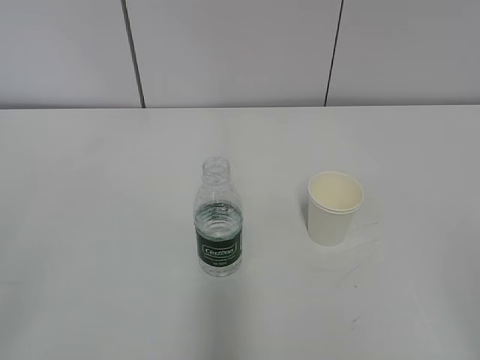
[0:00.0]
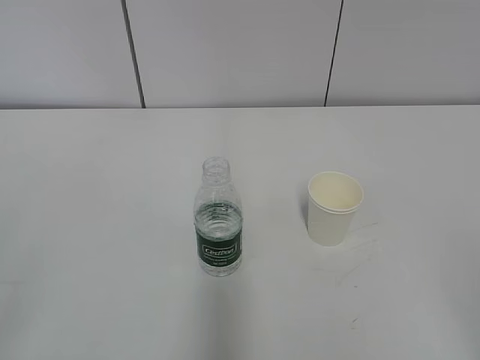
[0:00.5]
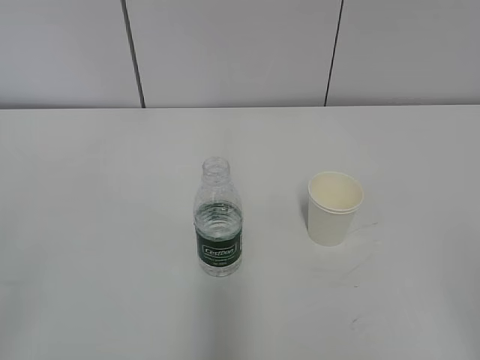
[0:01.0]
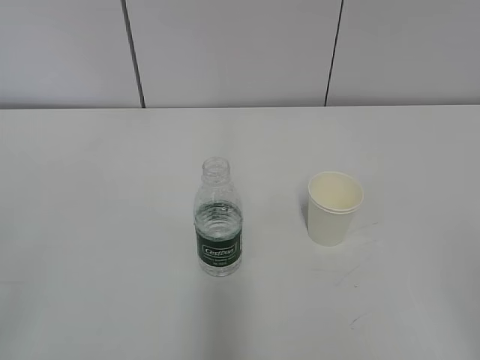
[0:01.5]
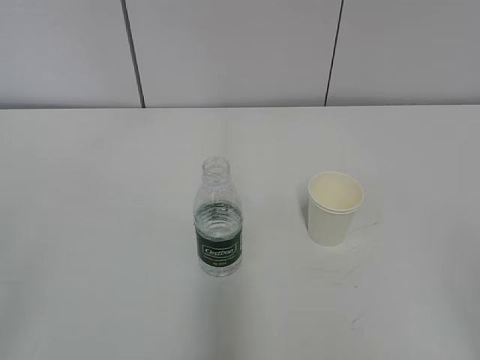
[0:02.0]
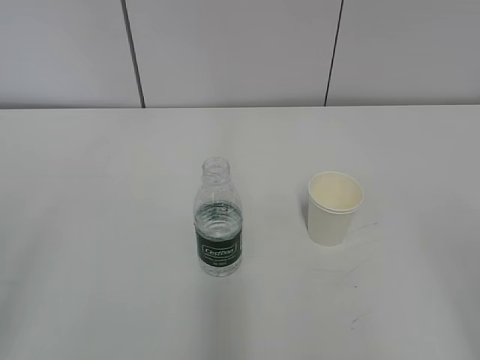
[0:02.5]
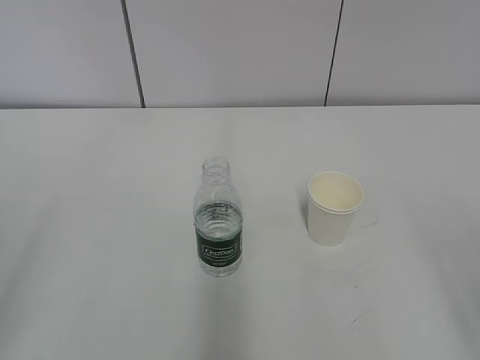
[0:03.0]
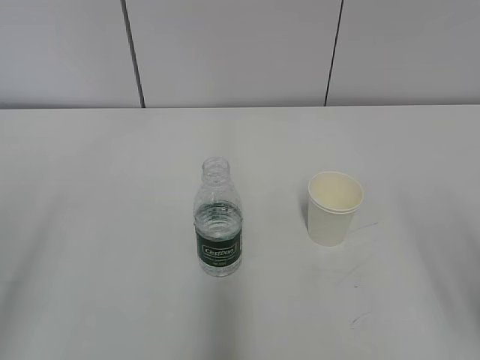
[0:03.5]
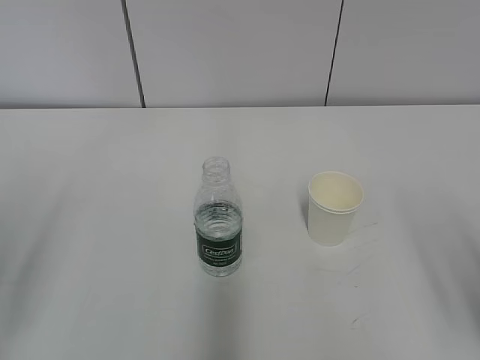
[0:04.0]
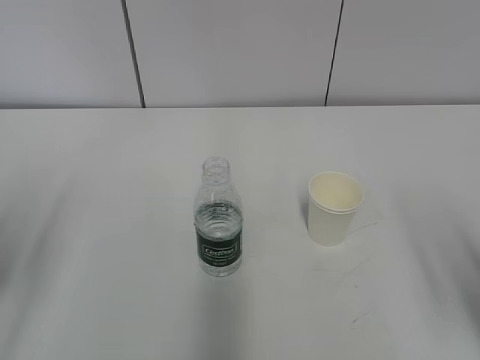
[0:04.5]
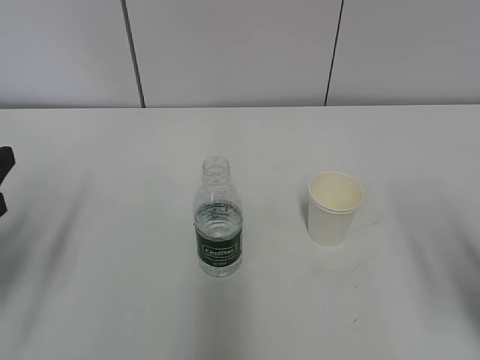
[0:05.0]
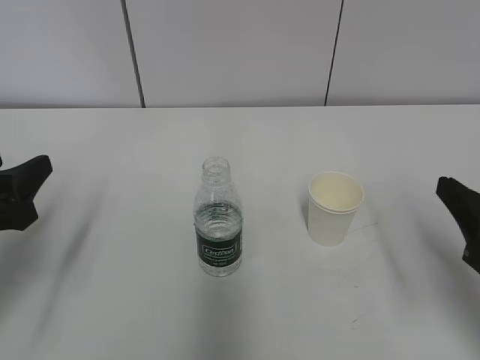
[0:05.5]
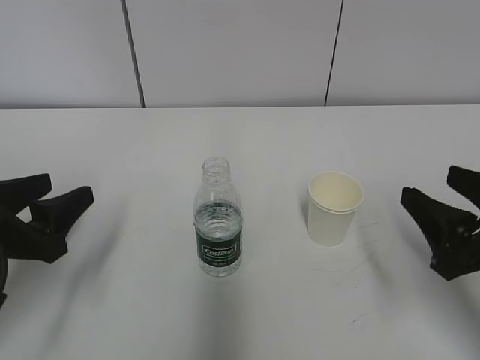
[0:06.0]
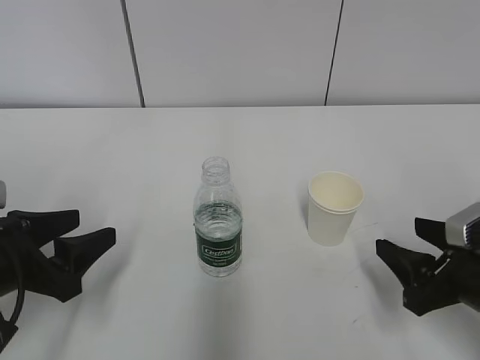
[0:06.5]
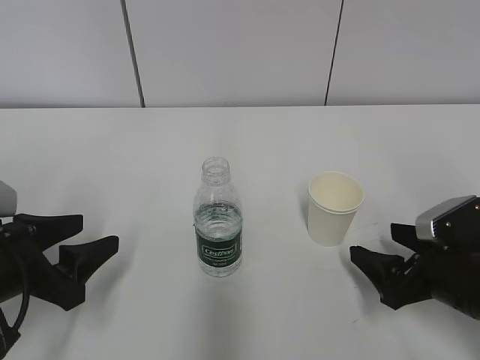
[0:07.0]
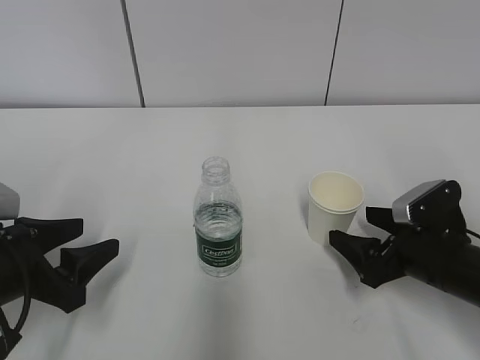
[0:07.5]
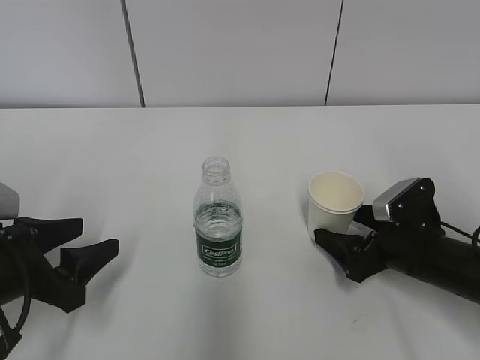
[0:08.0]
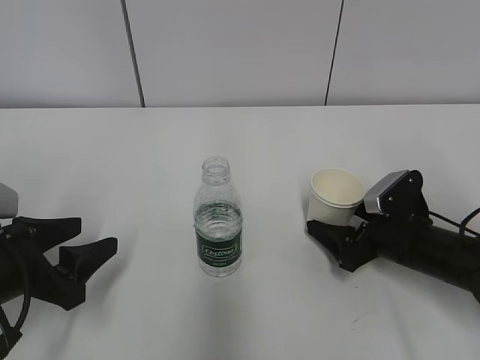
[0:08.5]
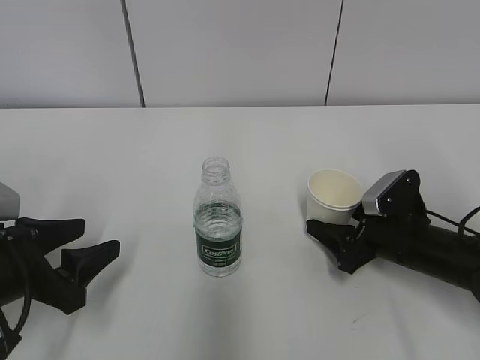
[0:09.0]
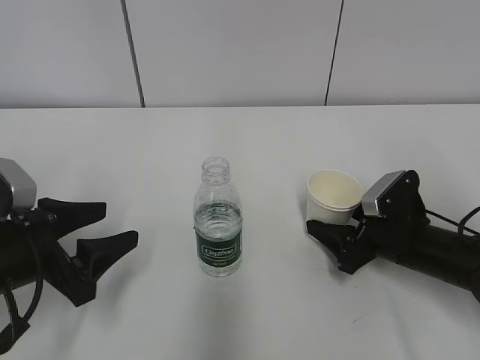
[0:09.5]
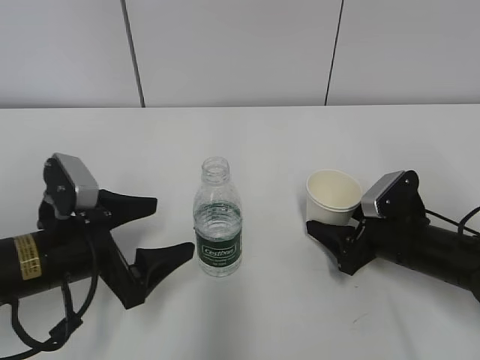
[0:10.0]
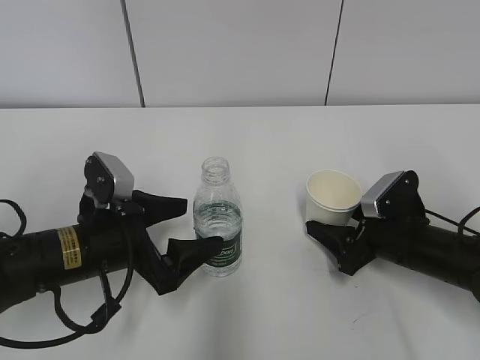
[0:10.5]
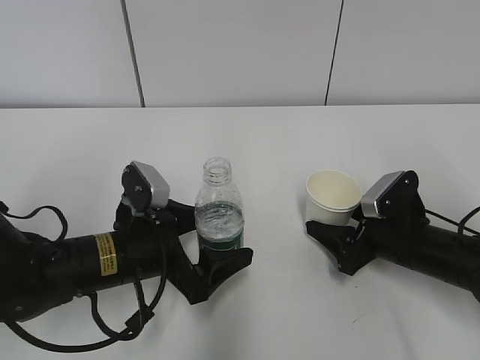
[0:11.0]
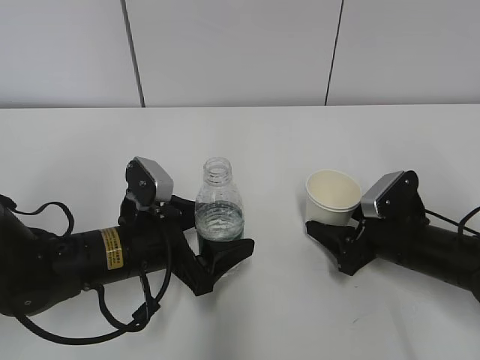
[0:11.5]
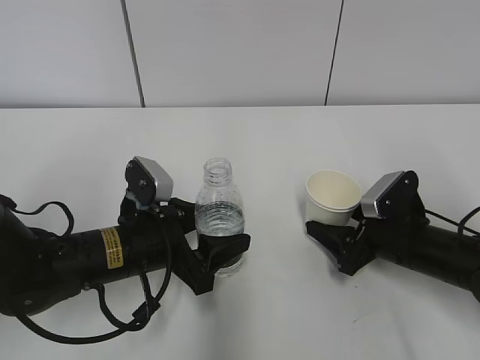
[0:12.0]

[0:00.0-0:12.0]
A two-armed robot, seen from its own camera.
Step, 0:00.0 to 0:07.5: Grab the paper cup with the right hand.
Step, 0:08.0 to 0:11.0: Grab the water bottle with the left hand.
0:04.0 to 0:06.0: The right gripper shifts approximately 10 cm forward and downward, while the left gripper heads downward and forward, covering approximately 15 cm.
0:06.0 to 0:08.0: The right gripper heads downward and forward, covering approximately 15 cm, and opens.
0:08.0 to 0:10.0: The left gripper shifts roughly 5 cm to the right, and opens up, while the right gripper closes its fingers.
0:10.0 to 0:12.0: The left gripper moves to the right, about 5 cm, and closes up.

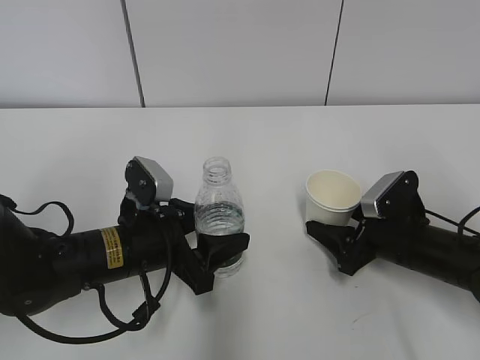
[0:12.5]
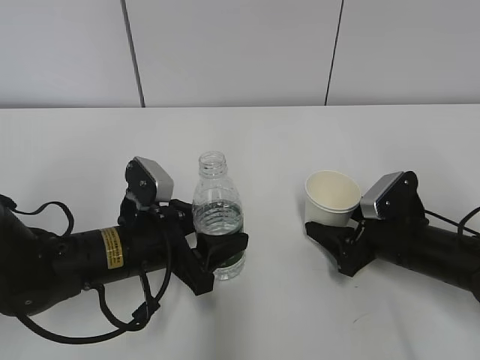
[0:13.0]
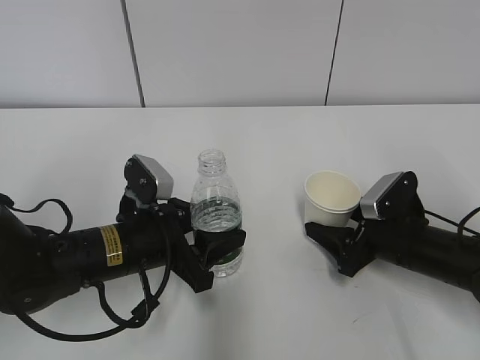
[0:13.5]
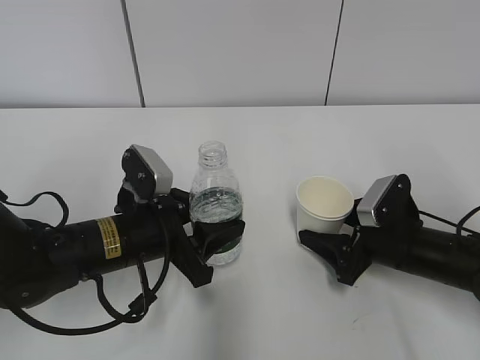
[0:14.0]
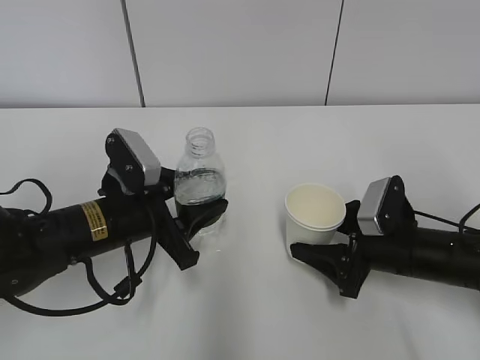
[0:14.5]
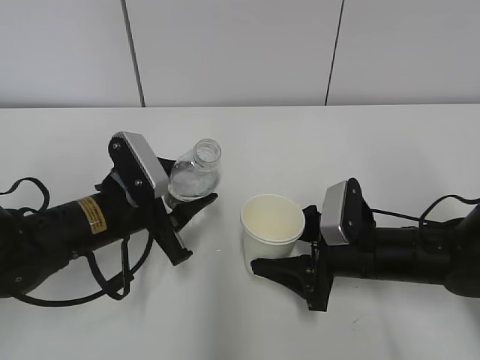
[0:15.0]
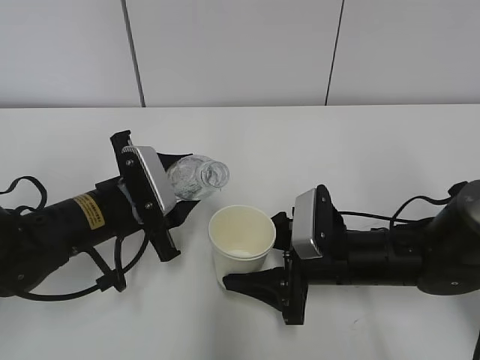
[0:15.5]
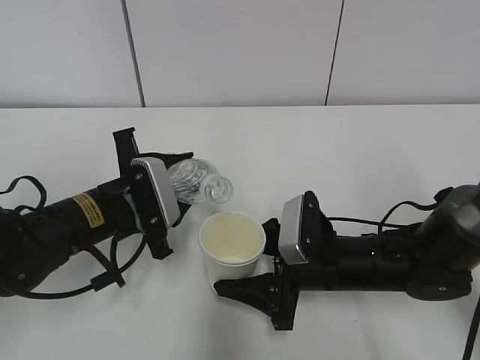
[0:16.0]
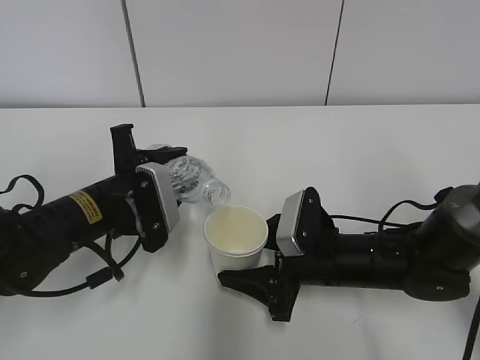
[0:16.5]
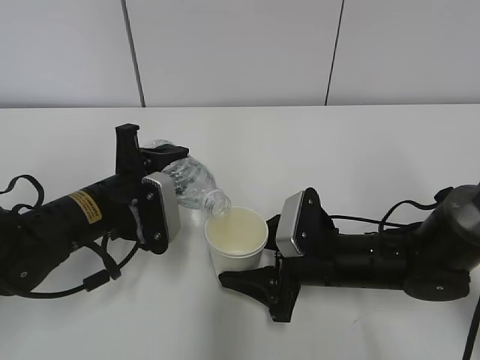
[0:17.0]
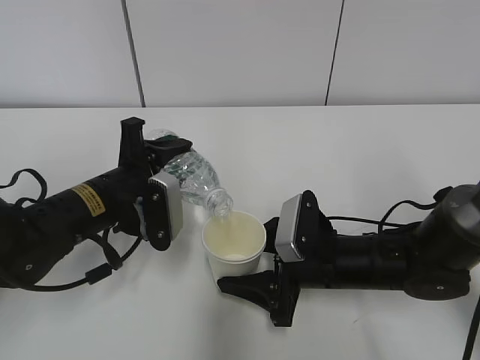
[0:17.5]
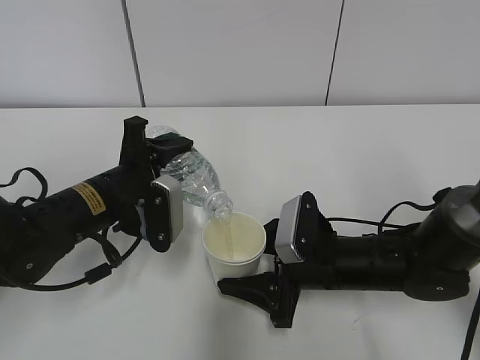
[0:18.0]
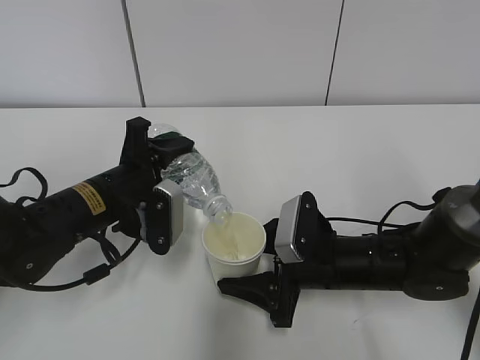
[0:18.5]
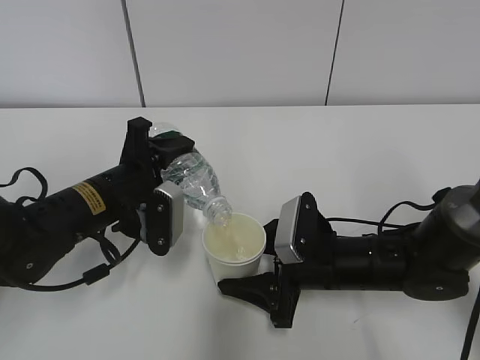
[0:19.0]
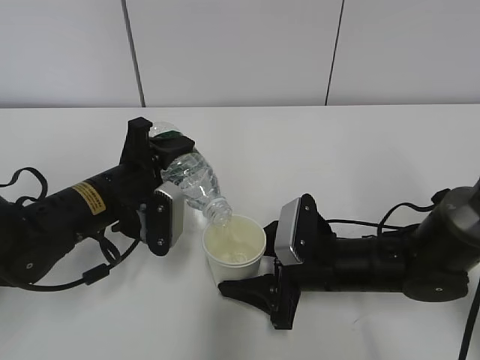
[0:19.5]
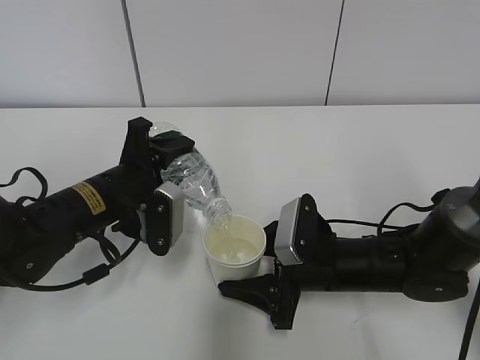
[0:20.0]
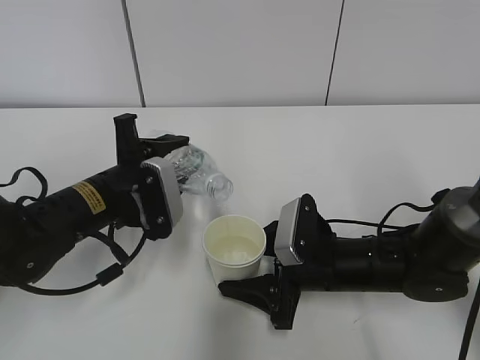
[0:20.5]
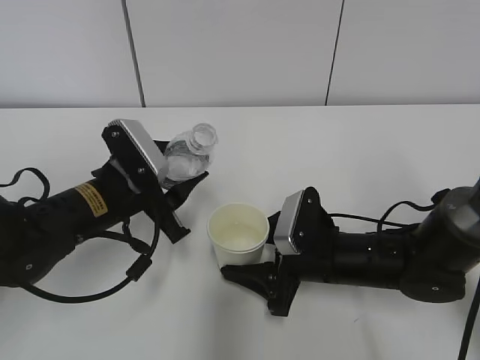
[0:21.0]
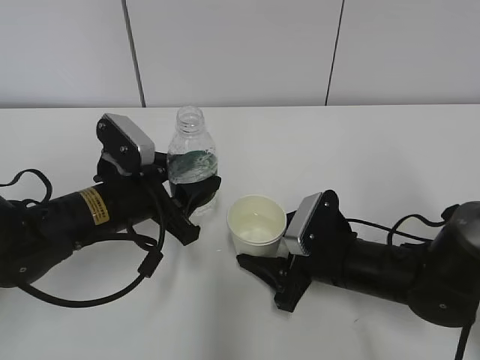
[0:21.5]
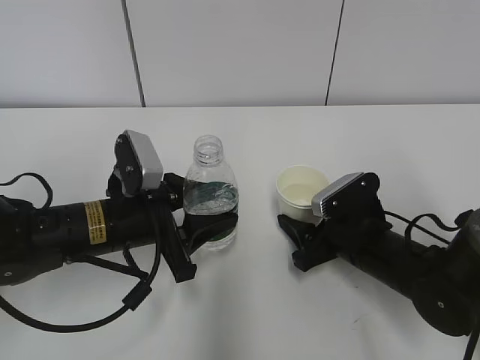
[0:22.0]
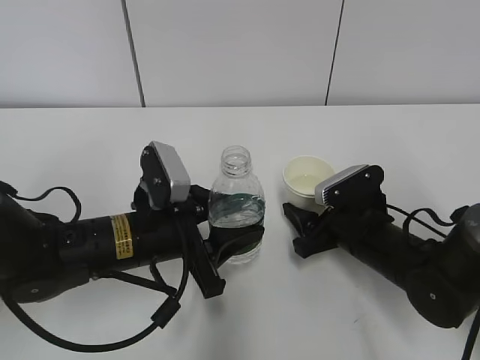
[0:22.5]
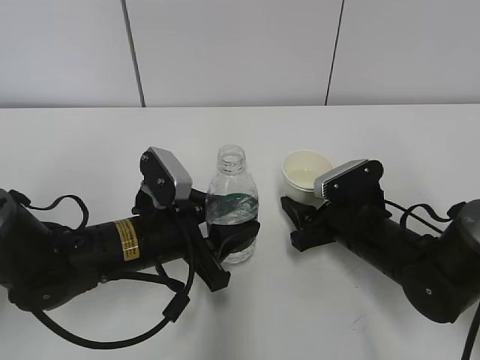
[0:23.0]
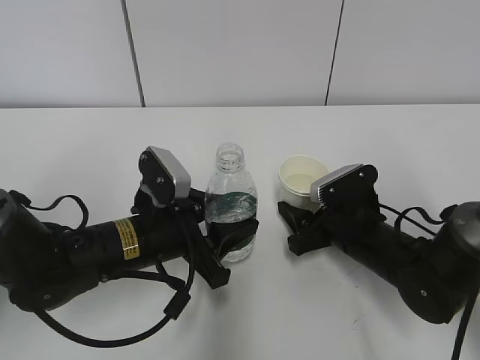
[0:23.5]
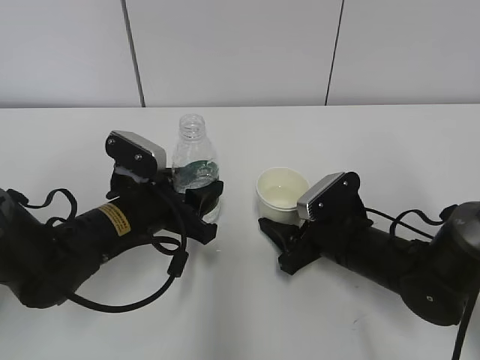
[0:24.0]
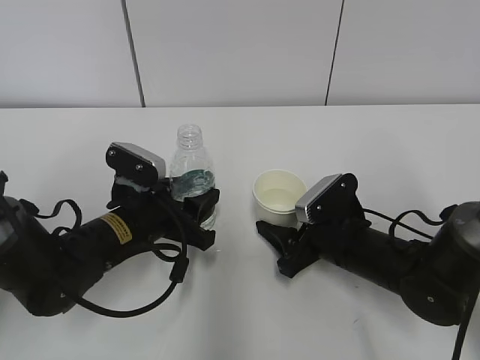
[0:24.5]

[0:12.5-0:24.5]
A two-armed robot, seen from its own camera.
Step, 0:12.5 to 0:14.5: Lift the paper cup with the right hand.
Step, 0:15.0 to 0:17.0: Fill water with the right hand.
Step, 0:15.0 to 0:17.0: Pour water with the left hand.
Step, 0:18.0 to 0:20.5: Place the paper cup with the right hand.
0:12.5 to 0:14.5: The grippers make only small movements.
0:14.5 to 0:16.5: The right gripper heads to the left, covering about 10 cm.
0:18.5 to 0:20.5: The grippers move only a little.
0:20.5 to 0:22.5: The right gripper travels to the right by approximately 5 cm, while the left gripper shifts by roughly 5 cm.

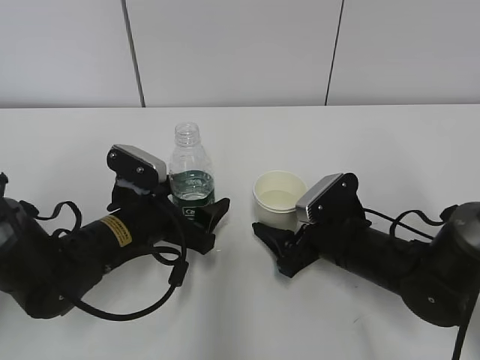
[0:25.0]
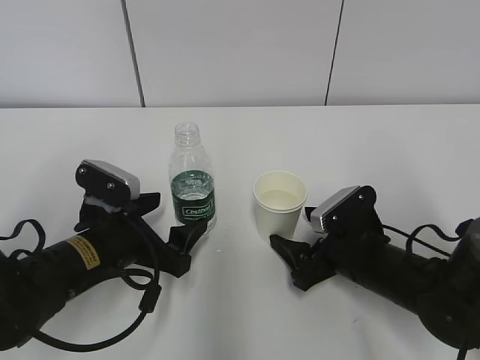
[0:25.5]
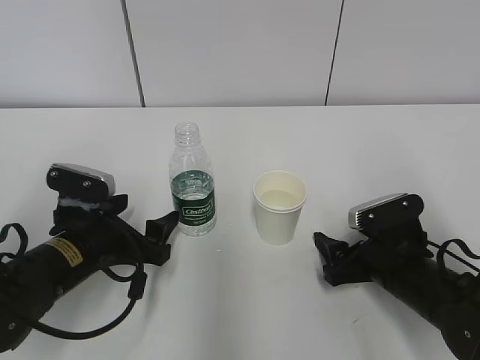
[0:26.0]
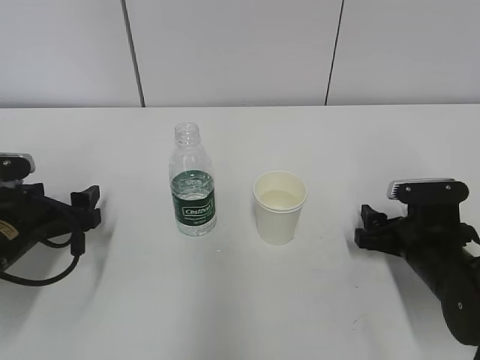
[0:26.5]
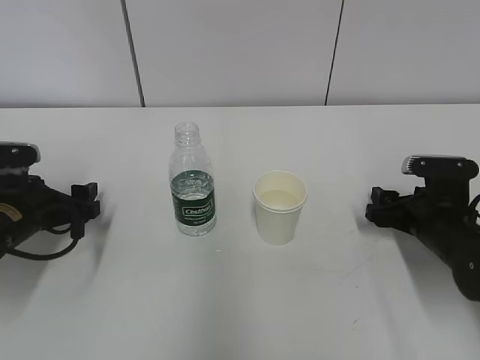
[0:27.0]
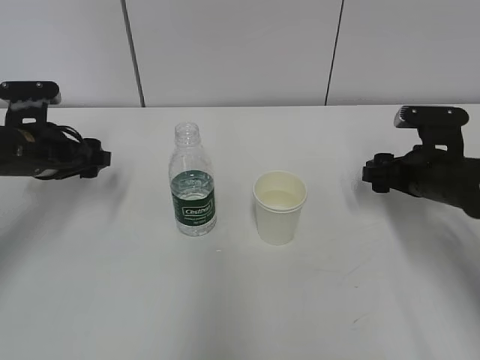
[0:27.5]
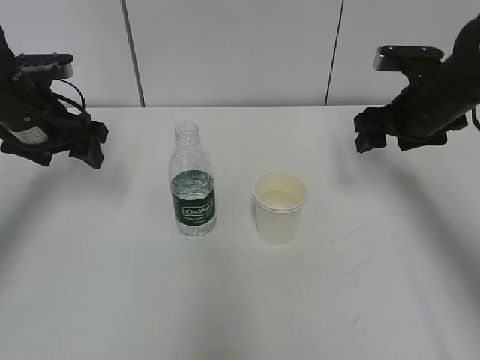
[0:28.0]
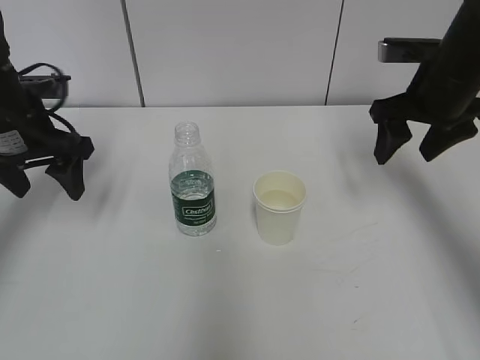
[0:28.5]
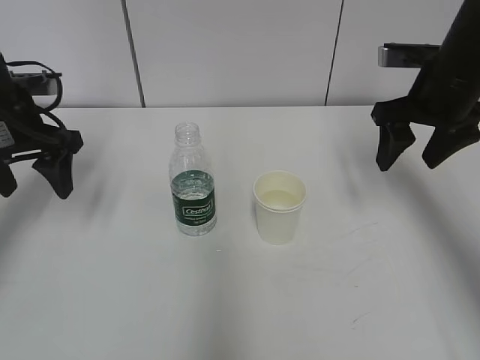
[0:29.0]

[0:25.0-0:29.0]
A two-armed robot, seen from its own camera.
0:25.0 to 0:27.0: The left gripper heads to the left, covering approximately 15 cm. The right gripper heads to the right, covering some 10 cm, and closes up.
0:27.0 to 0:29.0: Both grippers move upward, approximately 15 cm.
